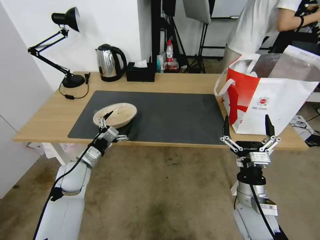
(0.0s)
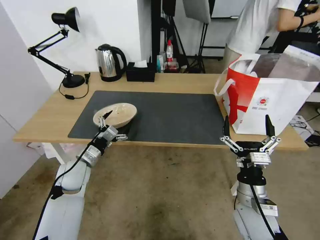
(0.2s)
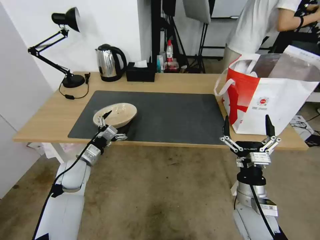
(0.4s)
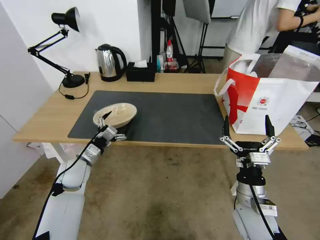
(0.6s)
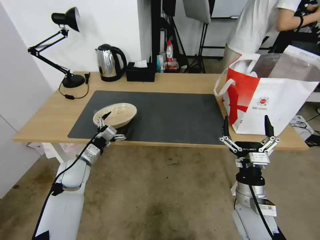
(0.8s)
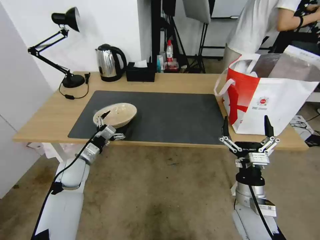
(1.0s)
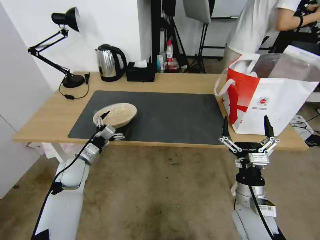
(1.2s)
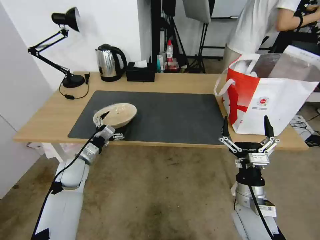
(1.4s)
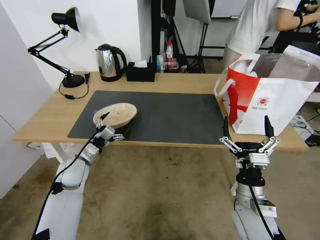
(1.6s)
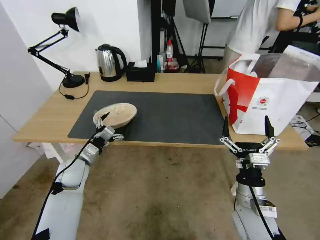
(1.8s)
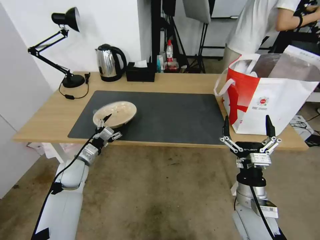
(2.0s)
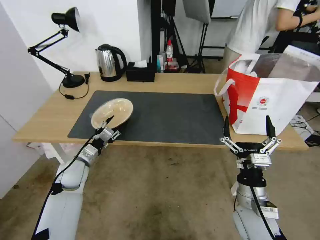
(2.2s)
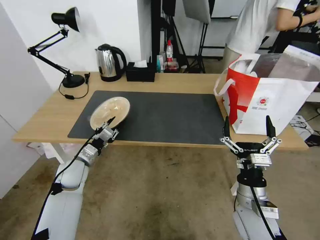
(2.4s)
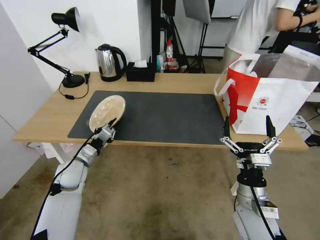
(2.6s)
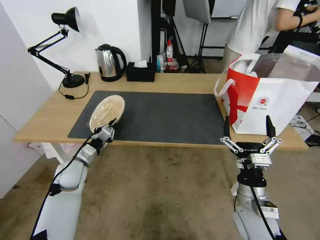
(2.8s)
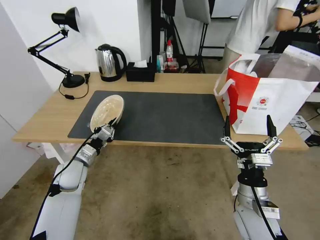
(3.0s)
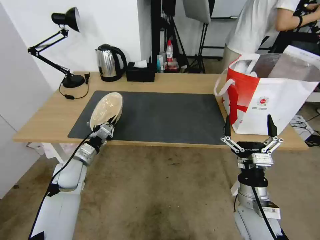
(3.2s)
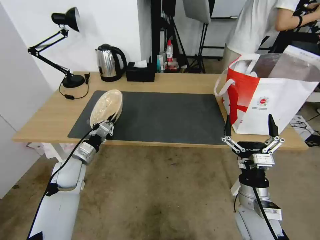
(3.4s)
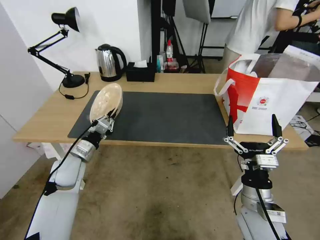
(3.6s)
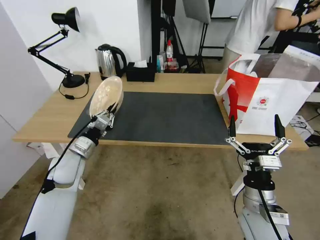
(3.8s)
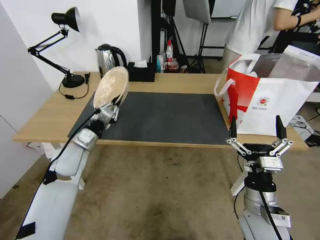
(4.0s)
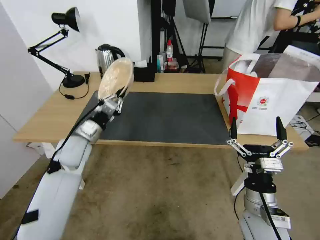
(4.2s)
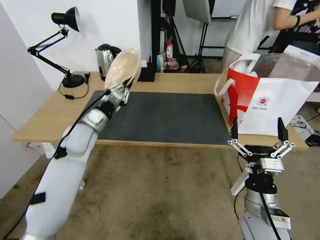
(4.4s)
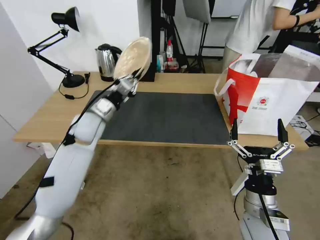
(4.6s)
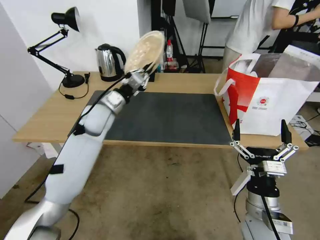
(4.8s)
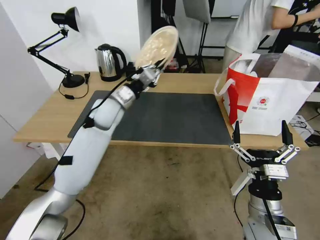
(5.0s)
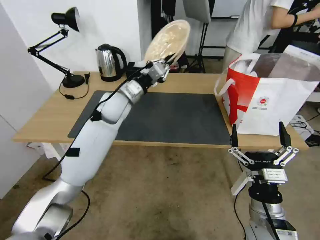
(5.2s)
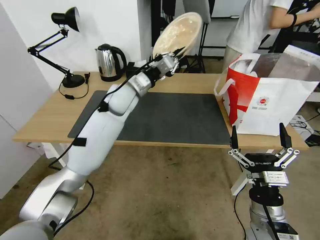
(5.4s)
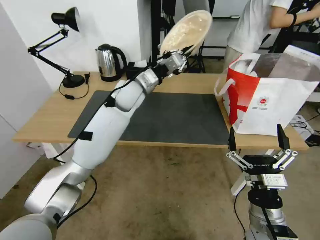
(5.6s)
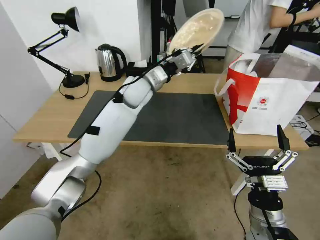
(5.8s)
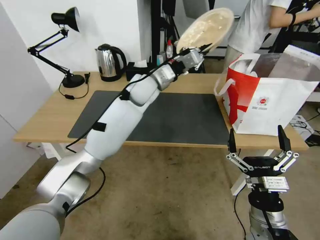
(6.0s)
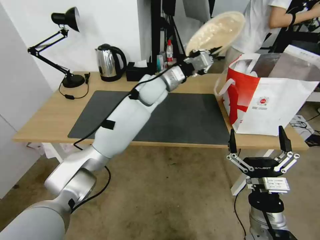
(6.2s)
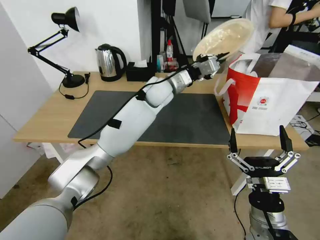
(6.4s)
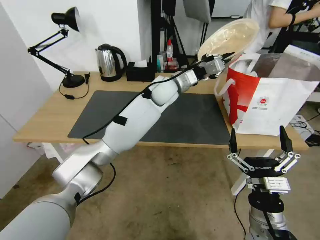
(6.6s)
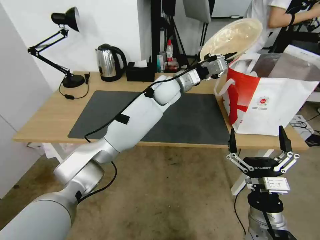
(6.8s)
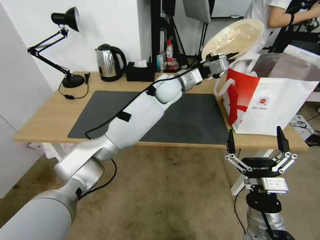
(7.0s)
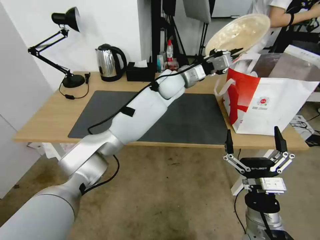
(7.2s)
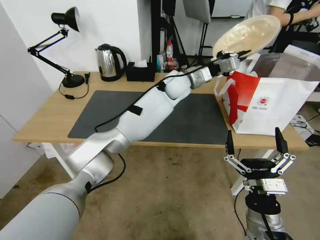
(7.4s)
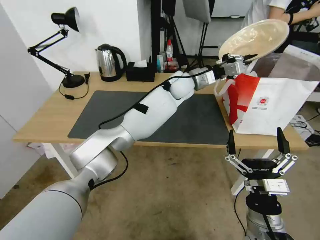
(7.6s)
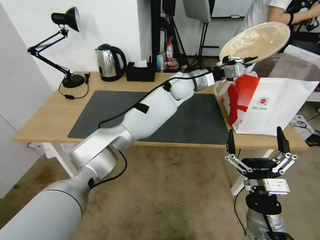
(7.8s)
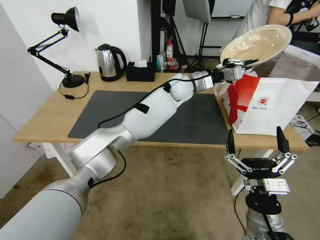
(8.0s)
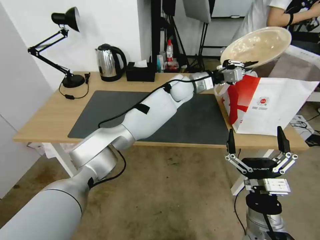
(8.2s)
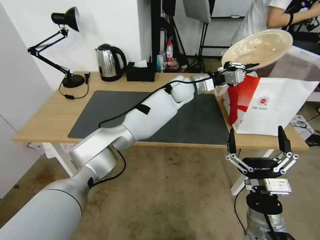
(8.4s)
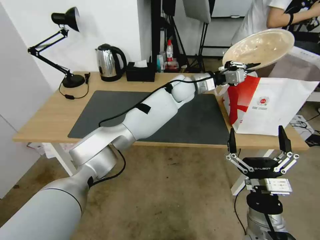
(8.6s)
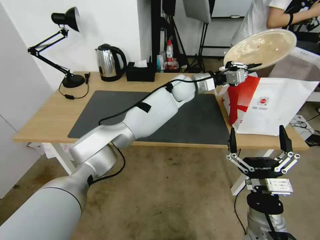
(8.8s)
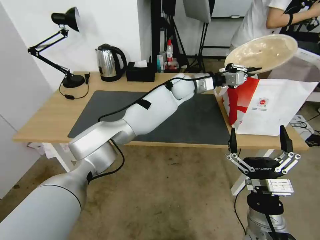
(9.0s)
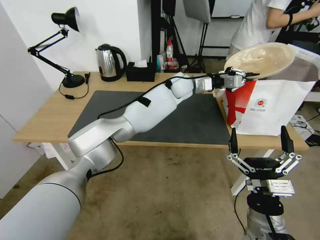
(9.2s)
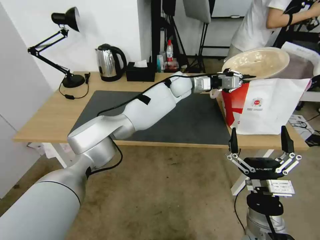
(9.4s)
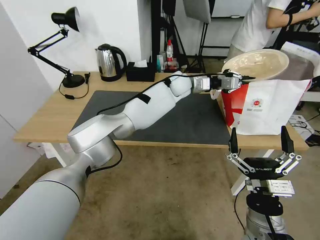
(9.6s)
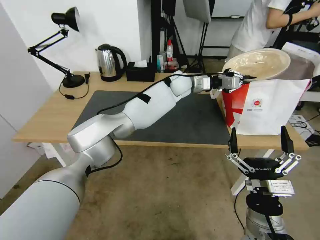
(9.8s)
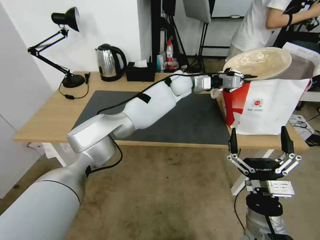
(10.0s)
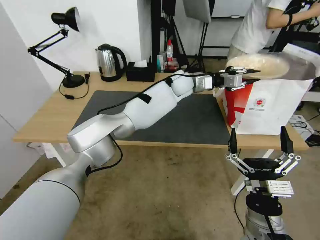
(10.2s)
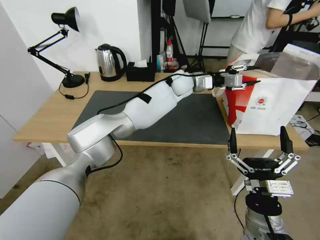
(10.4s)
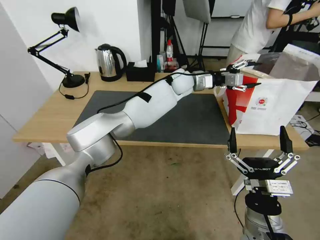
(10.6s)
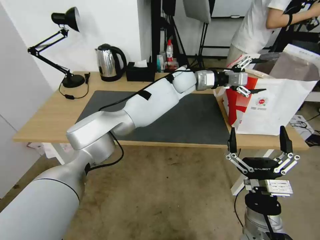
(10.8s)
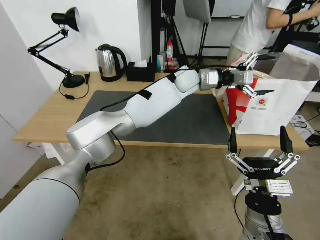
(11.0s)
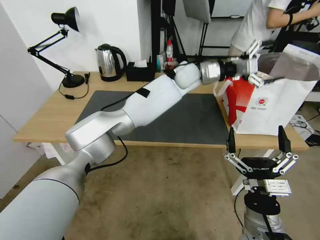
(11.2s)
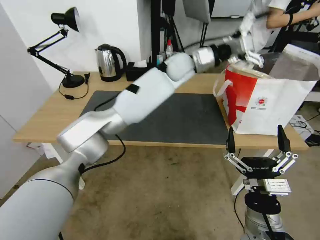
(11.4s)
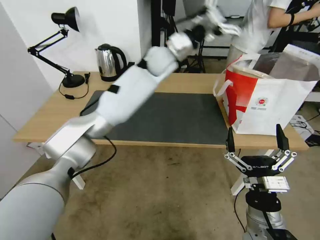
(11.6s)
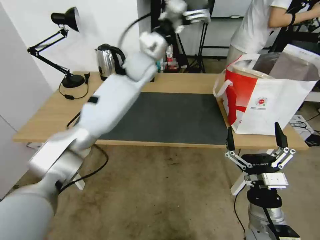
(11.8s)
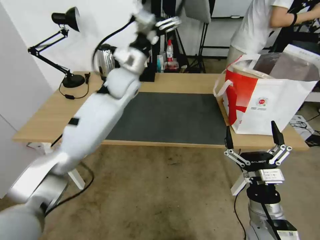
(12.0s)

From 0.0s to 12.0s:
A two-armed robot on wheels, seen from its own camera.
Task of the whole recording: Pick up the trash from the table and place it into the takeout bag.
From 0.0s to 1.6s: The grippers make only small movements.
From 1.6s to 3.0s: The left gripper closes its fingers.
From 3.0s to 4.4s: The left gripper heads upward, forward and to the right, covering about 15 cm.
From 4.4s to 6.0s: The left gripper moves to the right, forward and upward, some 25 cm.
From 6.0s to 7.6s: The left gripper heads to the right, covering approximately 15 cm.
From 7.6s to 9.0s: There are only small adjustments of the grippers.
From 9.0s to 10.4s: The left gripper opens.
From 10.4s to 12.0s: The left gripper travels to the left and backward by roughly 20 cm, and opens up.

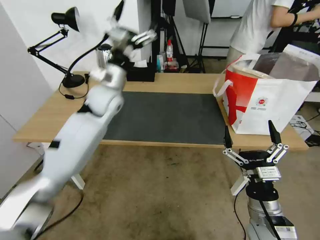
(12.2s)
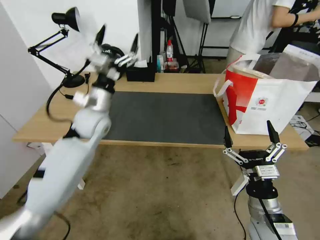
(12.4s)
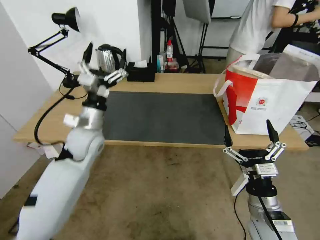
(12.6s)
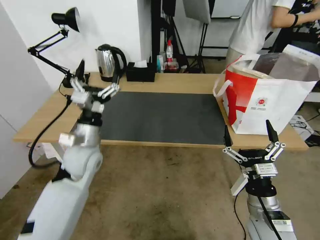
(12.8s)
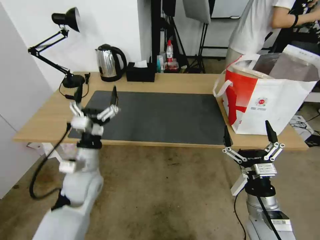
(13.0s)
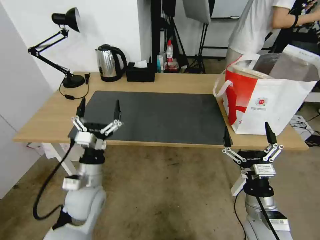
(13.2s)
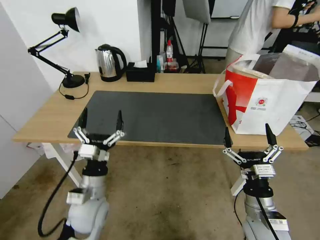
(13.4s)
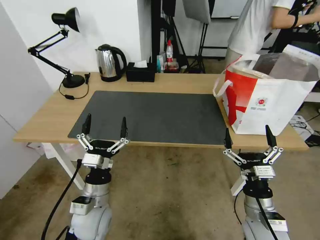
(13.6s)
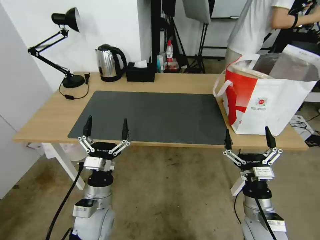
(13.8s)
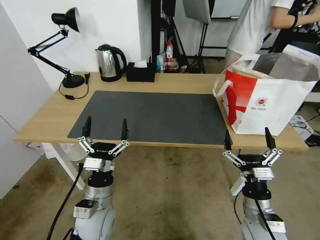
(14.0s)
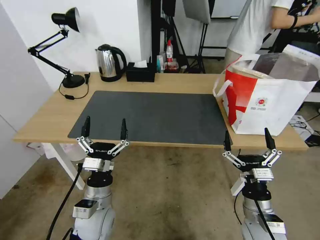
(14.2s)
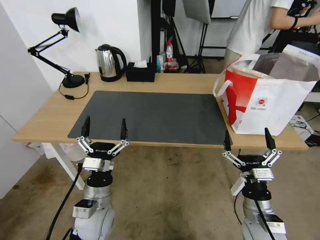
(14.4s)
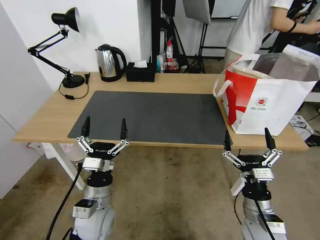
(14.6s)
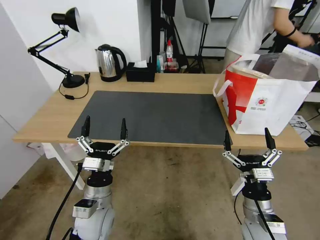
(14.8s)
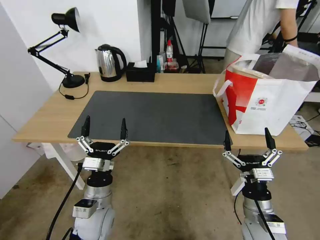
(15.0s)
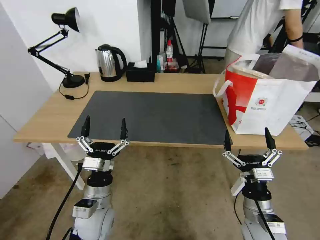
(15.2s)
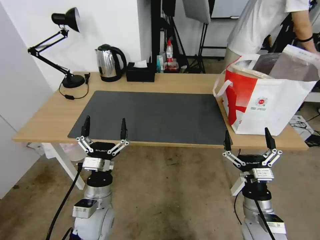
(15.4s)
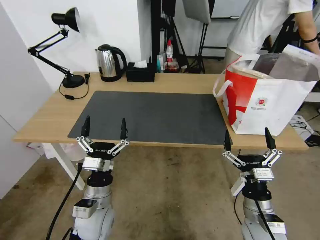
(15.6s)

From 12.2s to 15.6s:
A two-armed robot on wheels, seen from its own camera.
Task of the whole recording: Pick up the trash from the table and place it into the takeout bag.
From 12.2s to 13.8s: The left gripper moves backward and downward, some 35 cm.
From 13.8s to 15.6s: Neither gripper changes place.

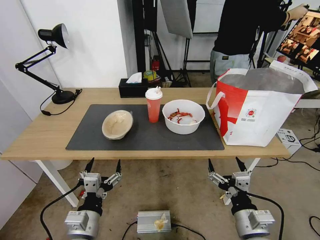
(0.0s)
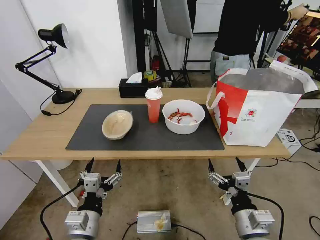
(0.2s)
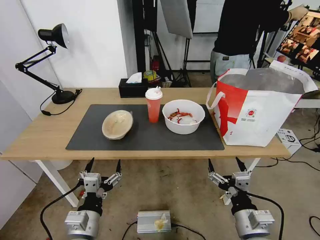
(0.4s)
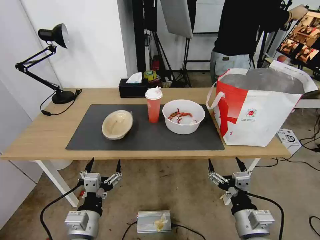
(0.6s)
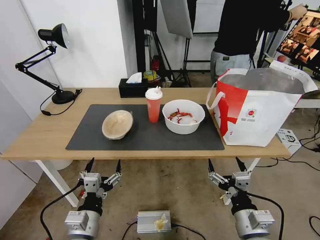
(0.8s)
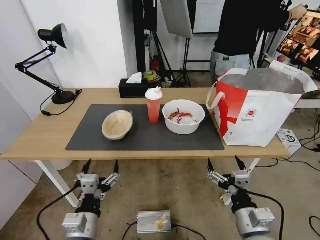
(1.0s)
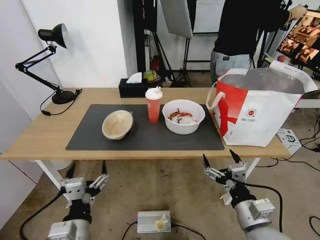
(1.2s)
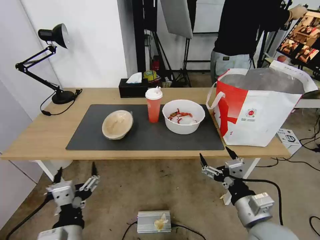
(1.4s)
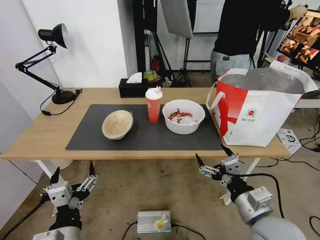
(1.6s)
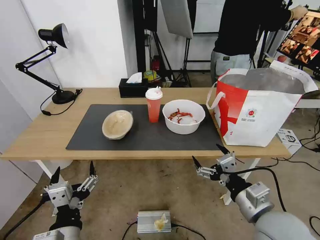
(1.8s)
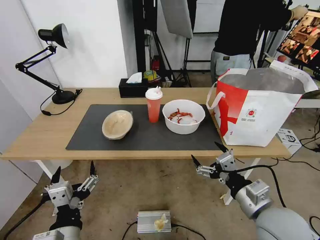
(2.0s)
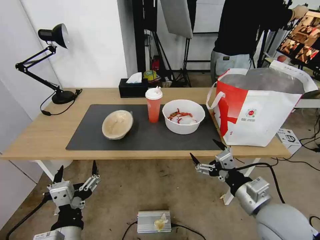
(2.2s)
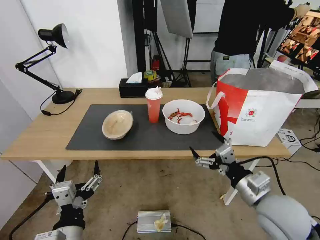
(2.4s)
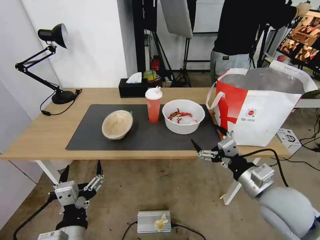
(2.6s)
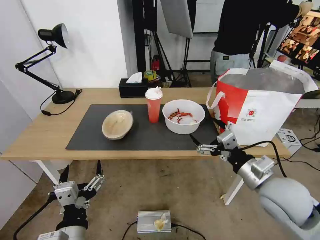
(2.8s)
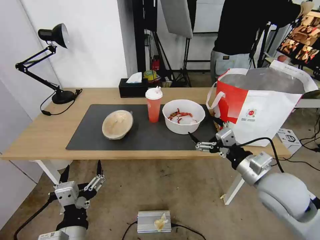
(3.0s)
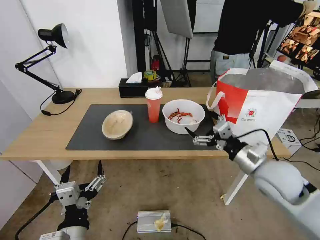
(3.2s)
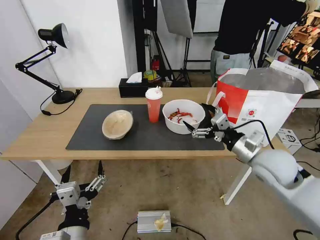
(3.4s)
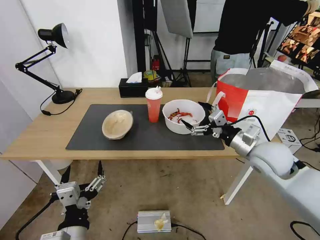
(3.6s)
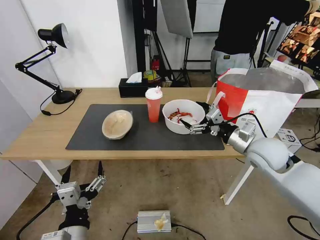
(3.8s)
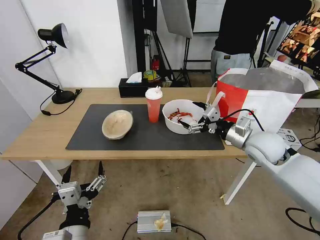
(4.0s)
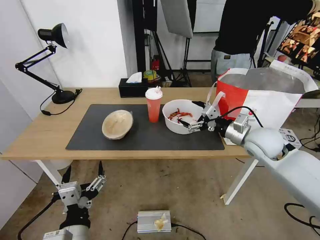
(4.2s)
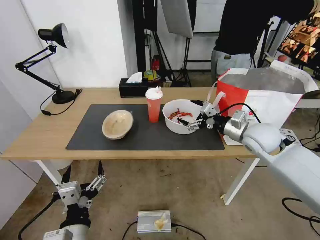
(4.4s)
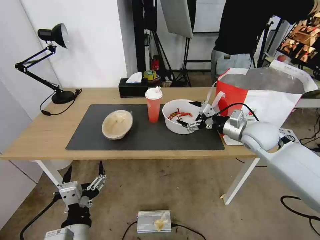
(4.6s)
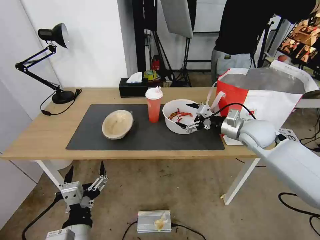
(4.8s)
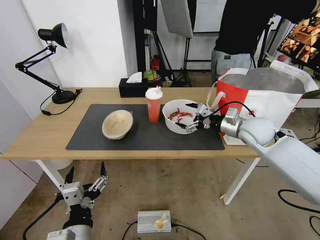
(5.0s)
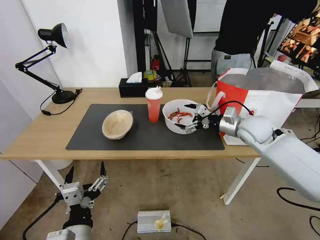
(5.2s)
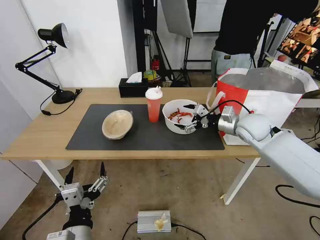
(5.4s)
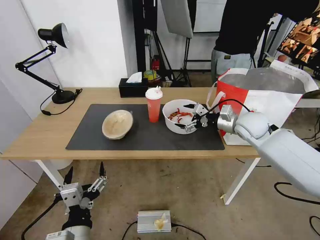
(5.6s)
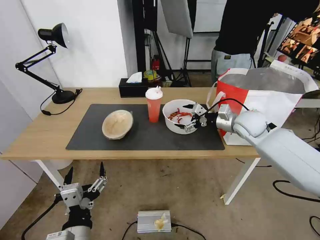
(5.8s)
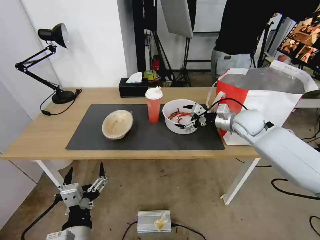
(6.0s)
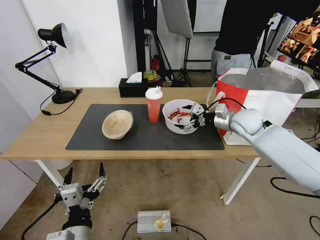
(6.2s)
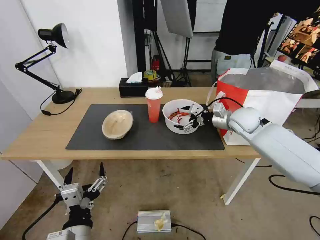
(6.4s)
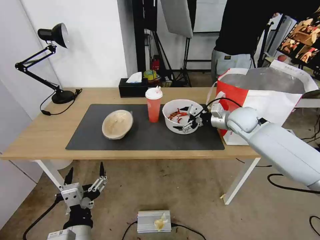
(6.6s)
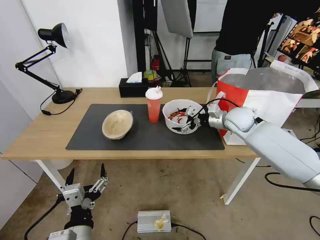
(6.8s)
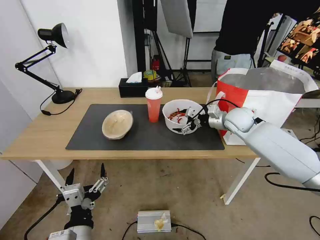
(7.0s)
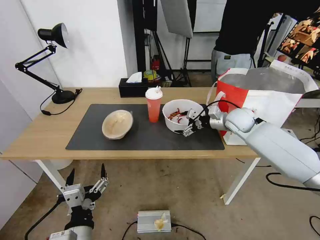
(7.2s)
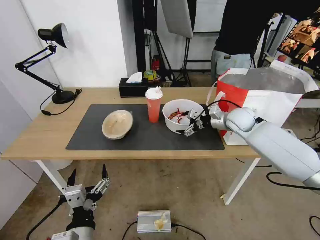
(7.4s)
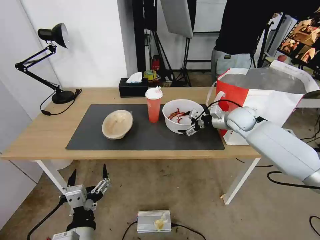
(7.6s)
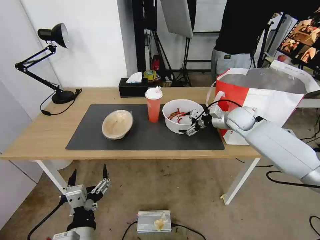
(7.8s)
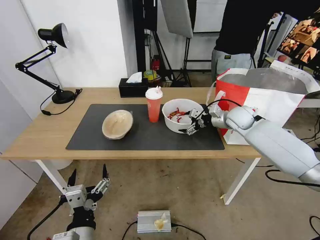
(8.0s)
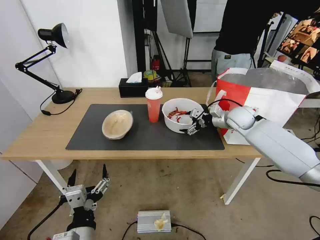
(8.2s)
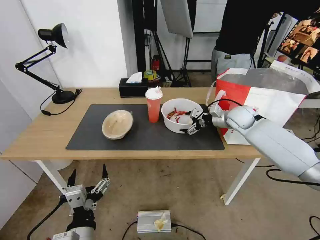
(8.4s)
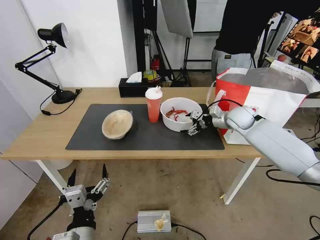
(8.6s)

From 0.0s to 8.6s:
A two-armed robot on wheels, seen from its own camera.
Task of the whole recording: Pick up the trash from the table and place it into the takeout bag.
From 1.4s to 2.8s: The right gripper travels forward and upward by about 10 cm.
From 2.8s to 4.4s: The right gripper goes some 20 cm forward.
From 4.4s to 5.8s: The right gripper goes approximately 5 cm forward.
From 5.8s to 7.2s: There are only small adjustments of the grippers.
From 7.2s to 8.6s: The grippers make only small movements.
